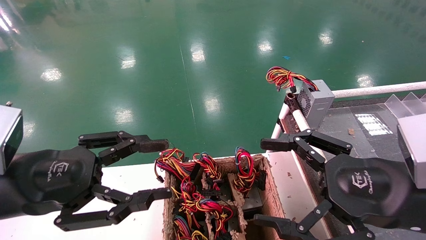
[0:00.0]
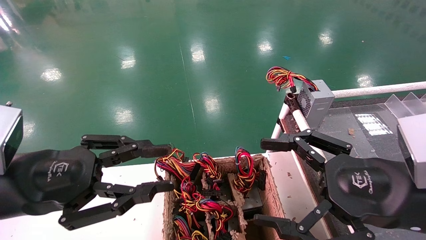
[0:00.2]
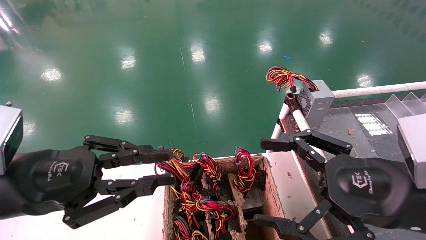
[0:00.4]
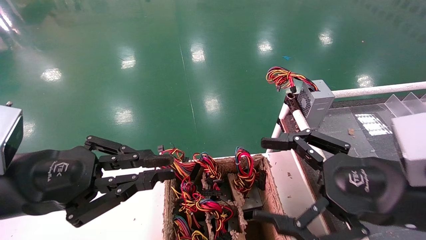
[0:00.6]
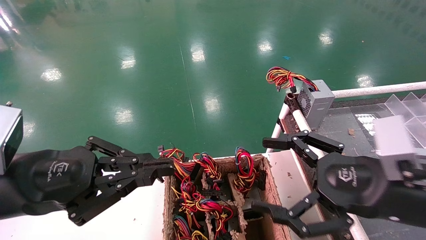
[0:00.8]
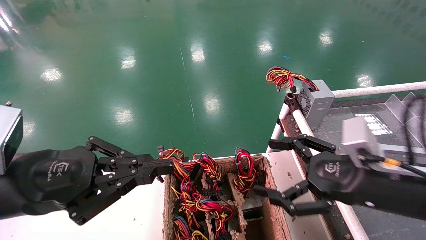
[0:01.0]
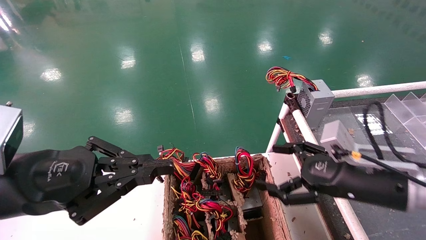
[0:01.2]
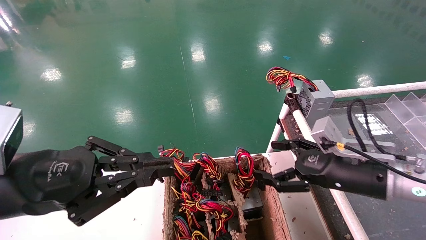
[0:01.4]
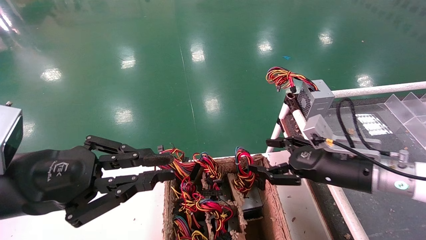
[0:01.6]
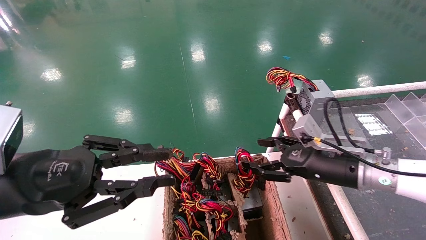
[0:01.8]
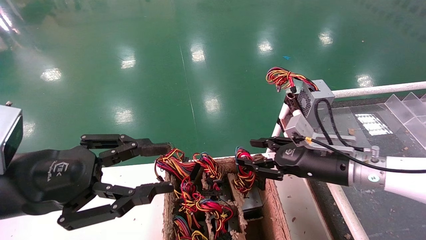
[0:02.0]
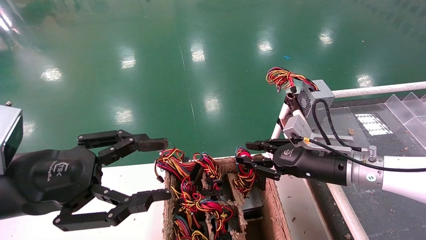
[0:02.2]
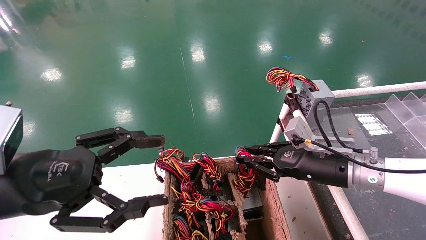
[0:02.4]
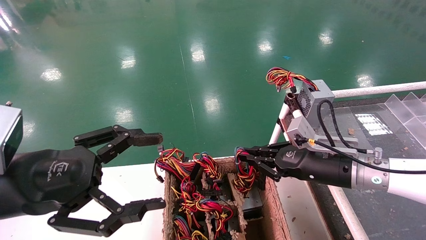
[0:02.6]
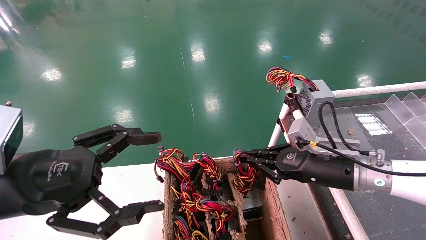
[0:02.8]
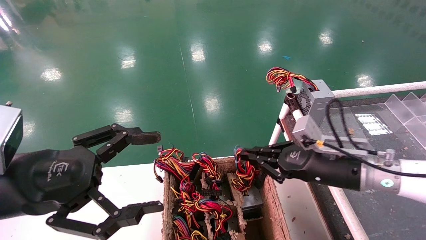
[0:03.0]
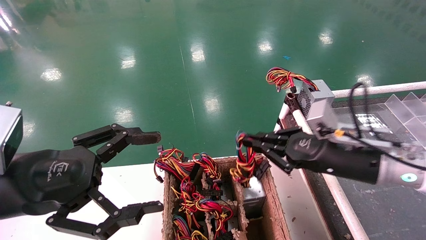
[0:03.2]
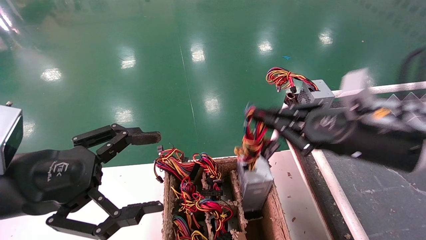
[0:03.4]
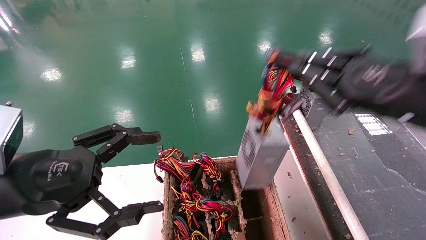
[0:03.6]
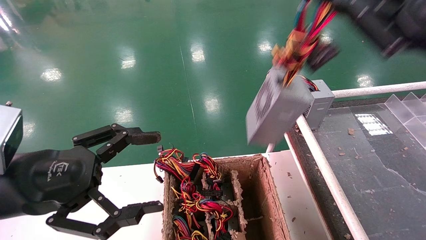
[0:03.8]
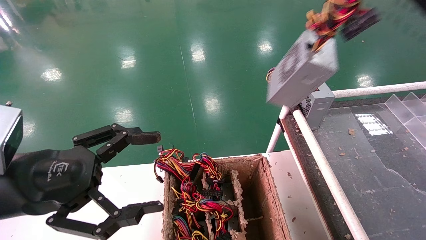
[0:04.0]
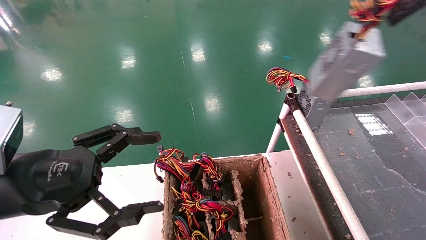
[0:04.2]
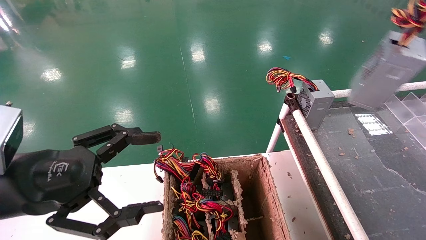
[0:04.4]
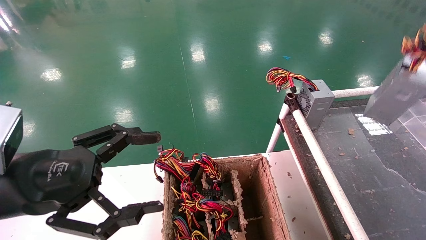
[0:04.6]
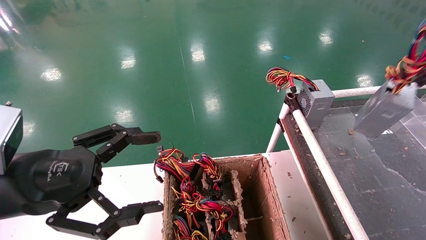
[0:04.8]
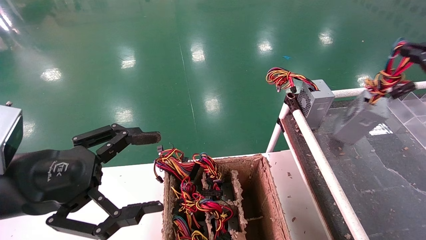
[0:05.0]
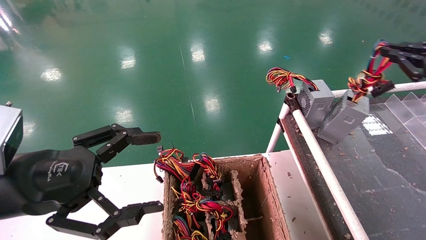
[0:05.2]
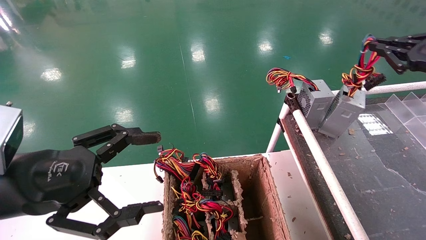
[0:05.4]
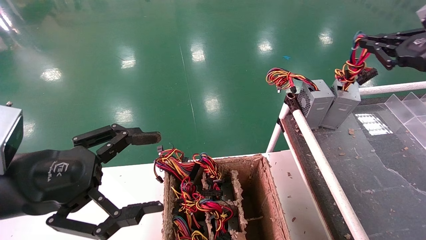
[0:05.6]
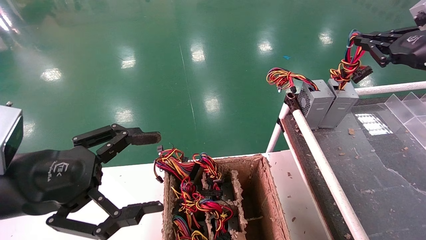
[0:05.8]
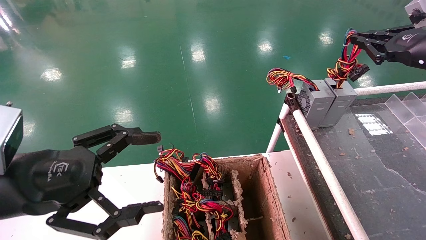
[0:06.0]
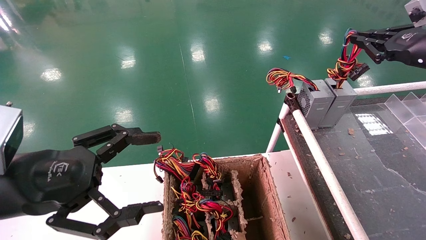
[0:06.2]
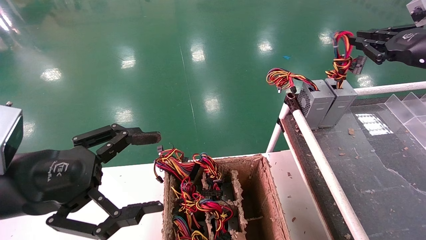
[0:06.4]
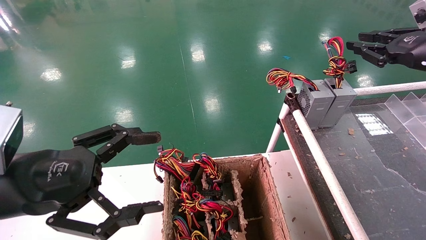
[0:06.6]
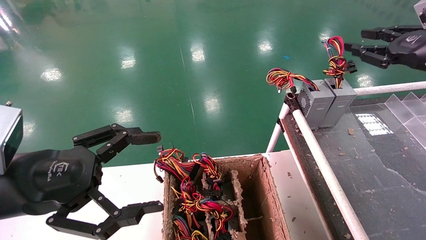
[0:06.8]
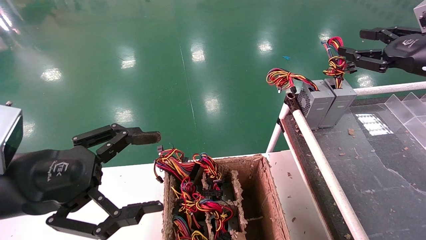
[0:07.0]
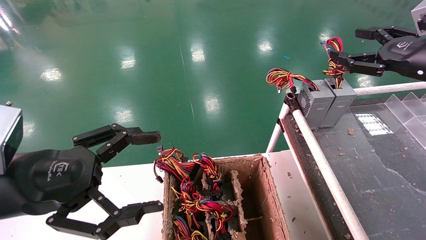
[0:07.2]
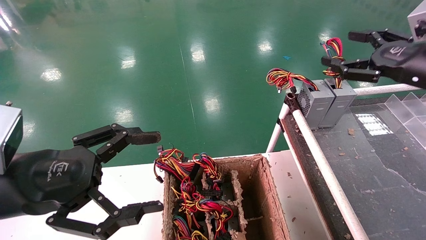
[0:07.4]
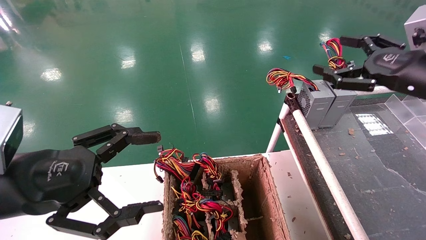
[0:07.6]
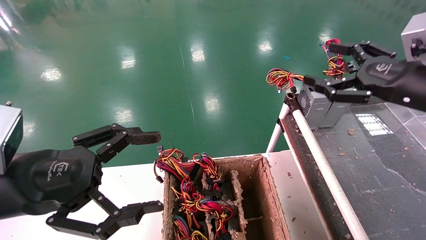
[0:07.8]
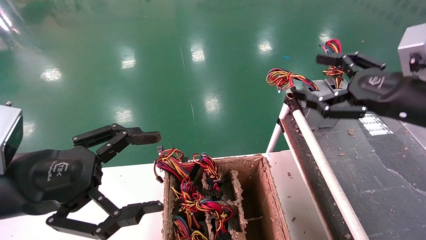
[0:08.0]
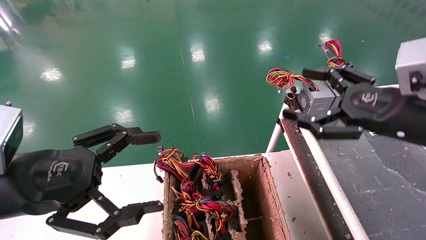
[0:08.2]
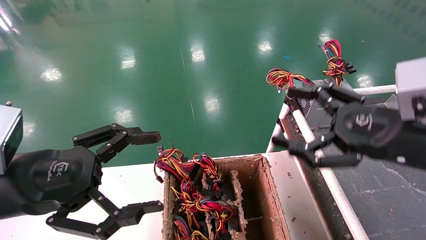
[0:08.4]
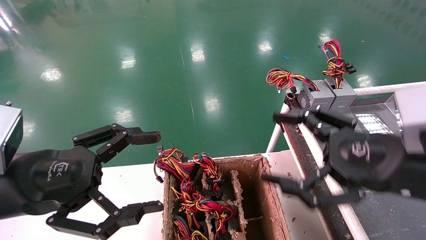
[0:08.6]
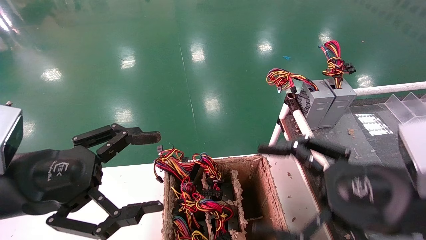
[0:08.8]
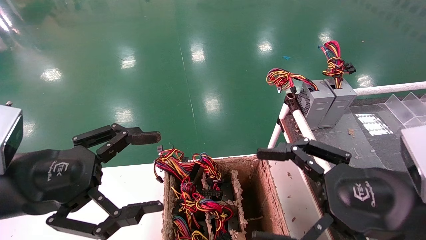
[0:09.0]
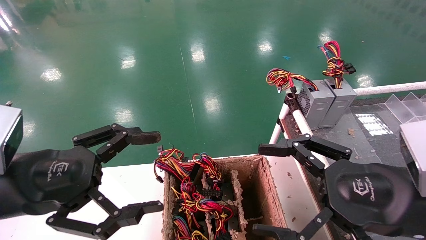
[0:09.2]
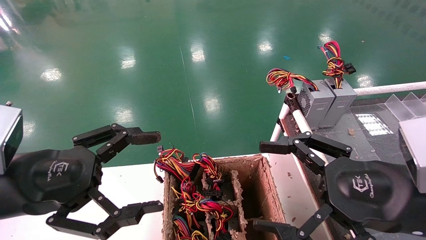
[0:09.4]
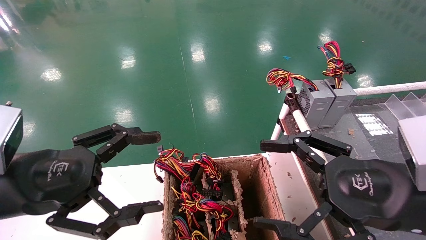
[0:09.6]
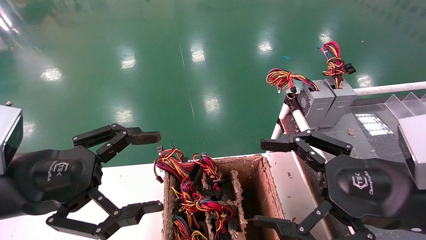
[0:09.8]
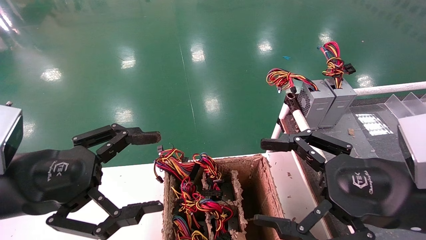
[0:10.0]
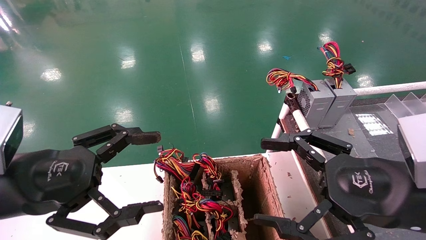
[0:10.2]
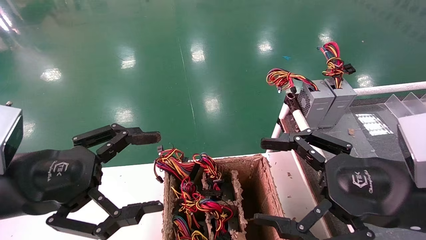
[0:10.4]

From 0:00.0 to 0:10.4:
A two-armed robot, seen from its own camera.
Step, from 0:01.0 to 0:02.6: Grab and lift the power supply from the large box.
Step, from 0:02.8 to 0:06.4: Place the power supply on the operating table.
From 0:00.0 to 0:01.4: The left gripper closes its fingers, while the right gripper travels forward and downward by some 15 cm.
From 0:01.4 to 0:03.0: The right gripper closes up; the left gripper opens.
From 0:03.0 to 0:04.4: The right gripper heads upward, to the right and backward, covering approximately 30 cm.
From 0:04.4 to 0:06.0: The right gripper goes some 15 cm forward.
From 0:06.0 to 0:07.4: The right gripper changes place by roughly 5 cm, and opens its fingers.
From 0:07.4 to 0:09.0: The right gripper travels backward, to the left and downward by roughly 25 cm.
From 0:09.0 to 0:10.4: Both grippers stay about where they are.

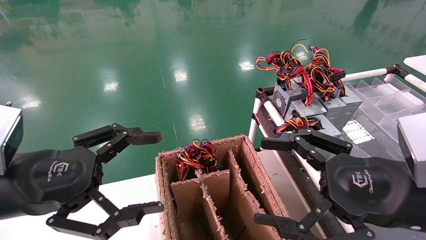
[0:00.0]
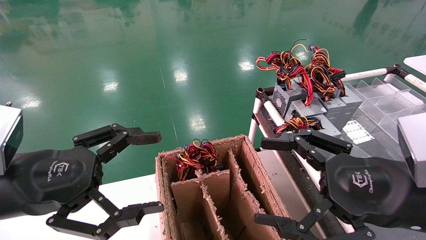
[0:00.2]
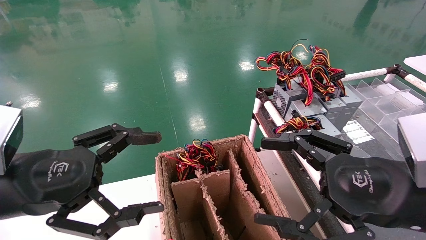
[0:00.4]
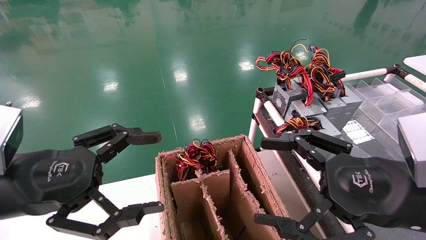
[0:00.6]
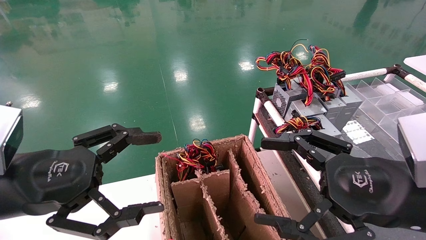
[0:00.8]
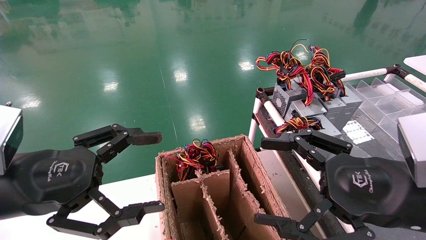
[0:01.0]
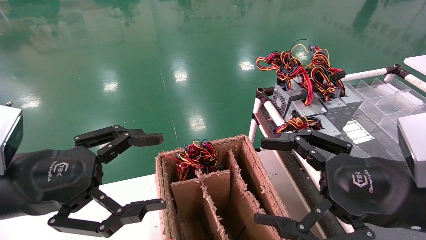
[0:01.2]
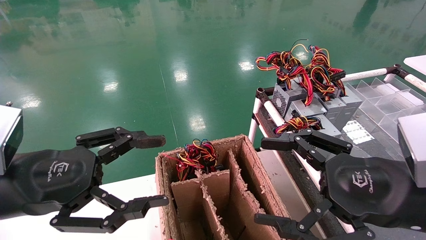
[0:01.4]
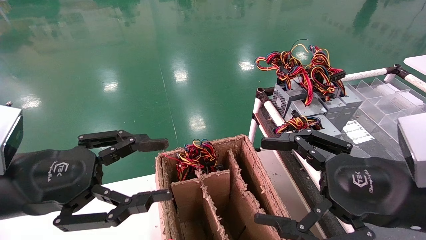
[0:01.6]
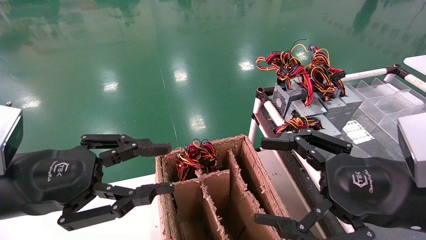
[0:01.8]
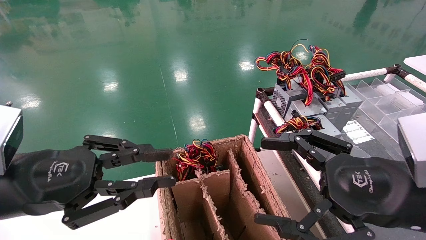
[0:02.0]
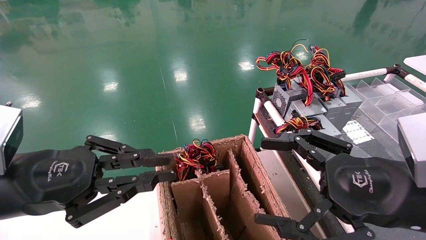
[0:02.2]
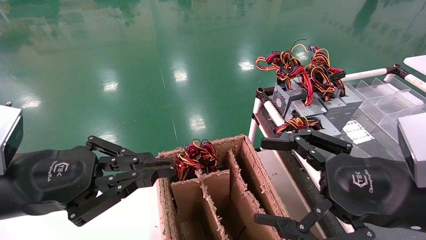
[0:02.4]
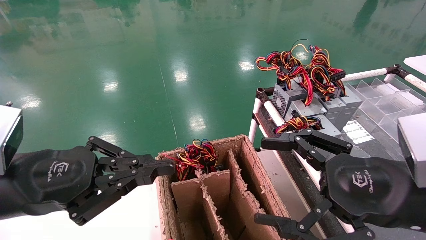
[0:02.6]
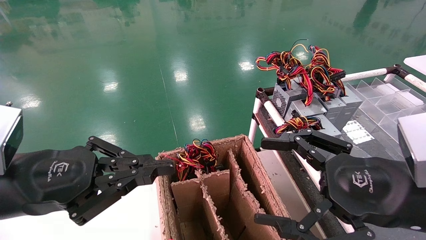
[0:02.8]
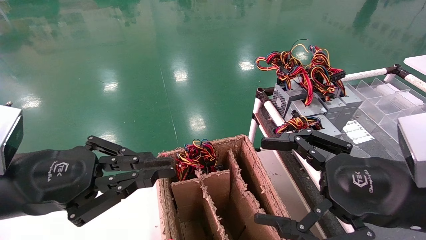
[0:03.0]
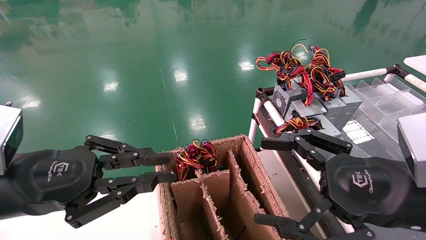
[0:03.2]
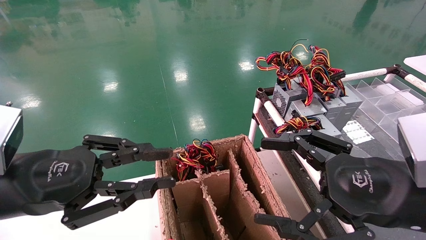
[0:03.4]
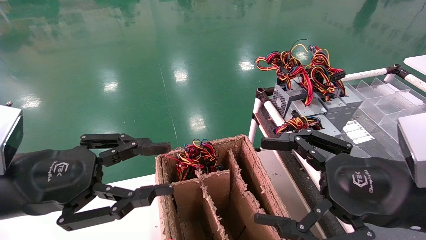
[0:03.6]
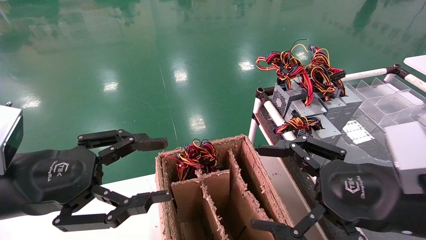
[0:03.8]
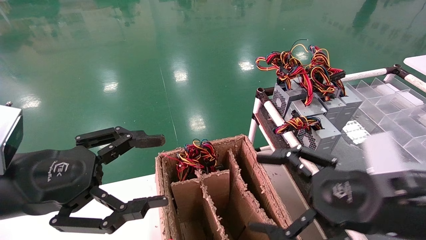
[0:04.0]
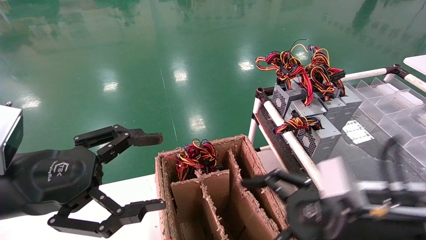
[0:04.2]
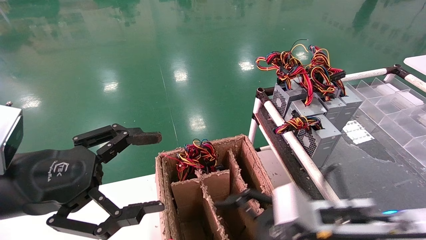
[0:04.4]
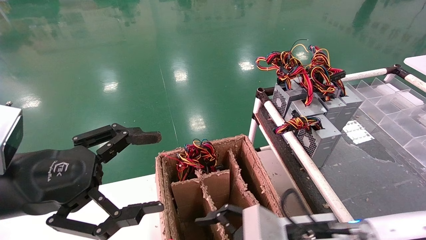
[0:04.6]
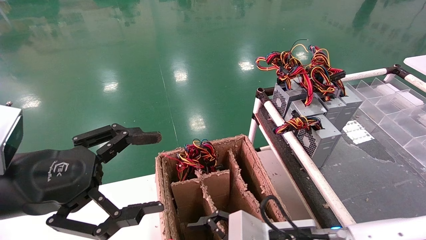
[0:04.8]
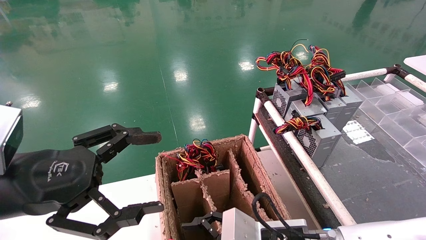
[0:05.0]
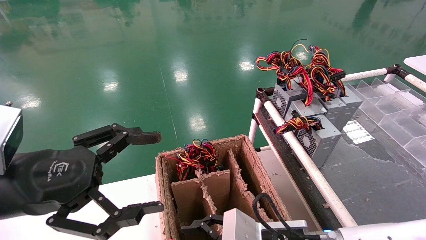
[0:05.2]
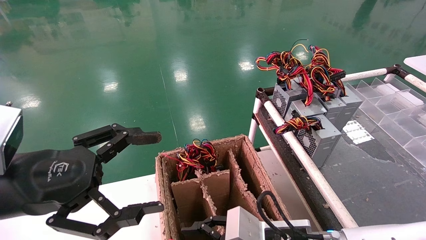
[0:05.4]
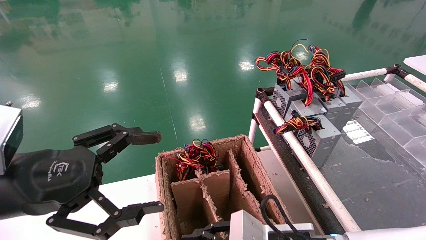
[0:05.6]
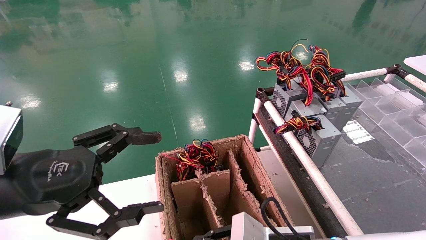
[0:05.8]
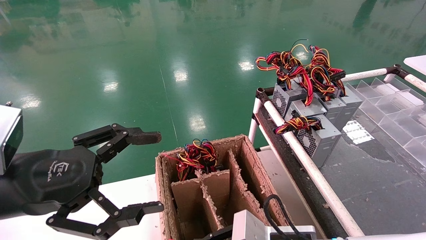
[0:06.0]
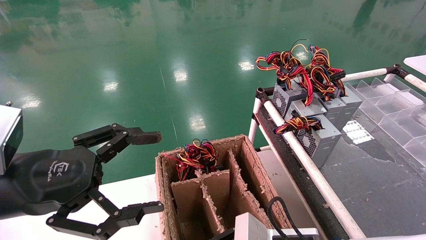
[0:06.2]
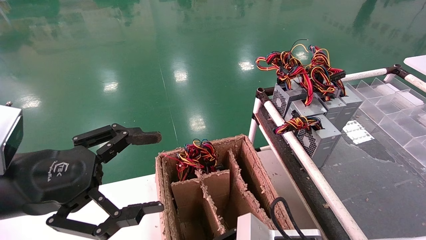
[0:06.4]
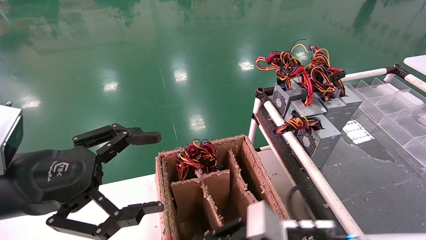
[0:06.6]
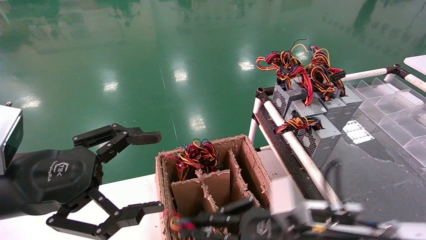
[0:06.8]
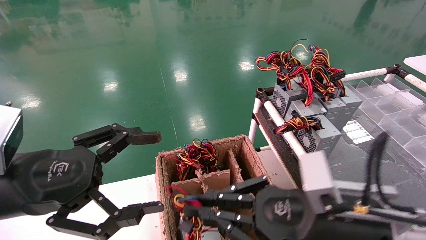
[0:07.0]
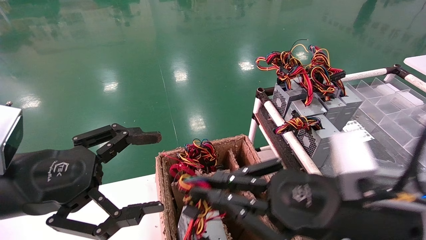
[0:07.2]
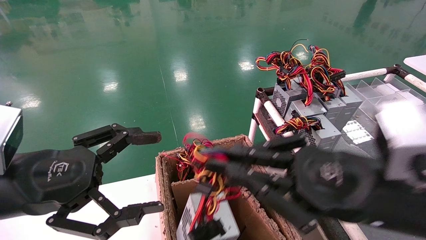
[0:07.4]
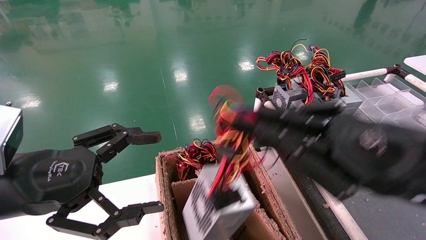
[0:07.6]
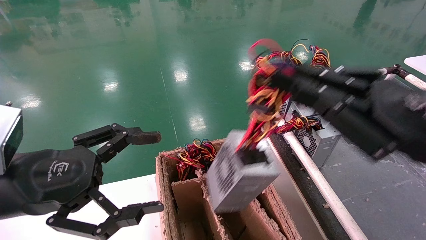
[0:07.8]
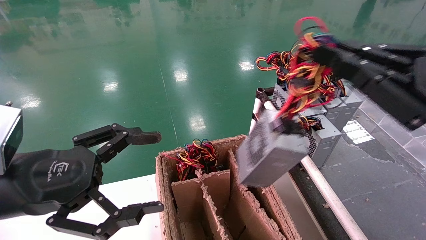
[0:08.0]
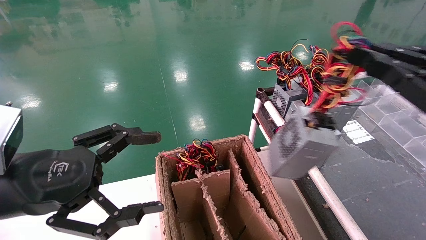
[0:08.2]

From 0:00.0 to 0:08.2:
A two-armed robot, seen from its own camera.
Step, from 0:02.6 to 0:06.2: Grab and lift the power supply from the large box.
From 0:00.0 to 0:01.6: The two grippers keep their place.
From 0:01.6 to 0:03.2: The left gripper closes its fingers.
From 0:03.2 to 0:05.0: The right gripper shifts approximately 20 cm downward, to the left and forward; the left gripper opens.
From 0:05.0 to 0:06.6: The right gripper closes.
From 0:06.6 to 0:08.2: The right gripper moves to the right and upward, some 30 cm.
